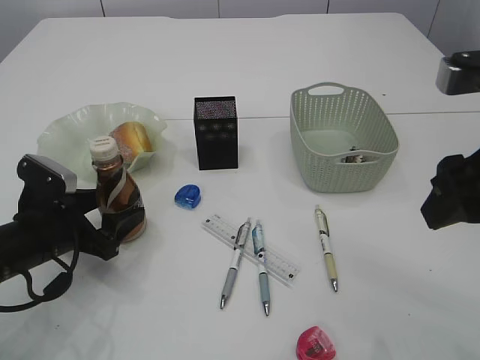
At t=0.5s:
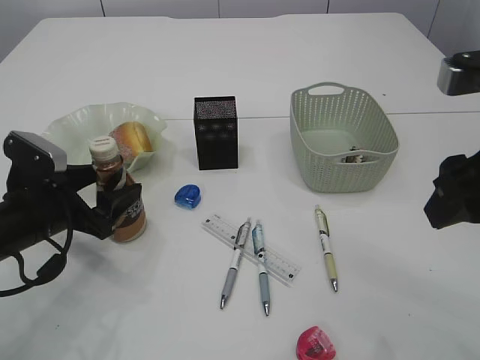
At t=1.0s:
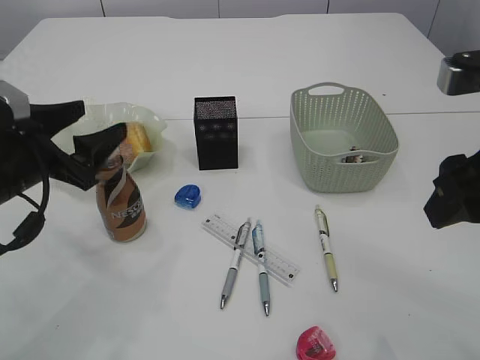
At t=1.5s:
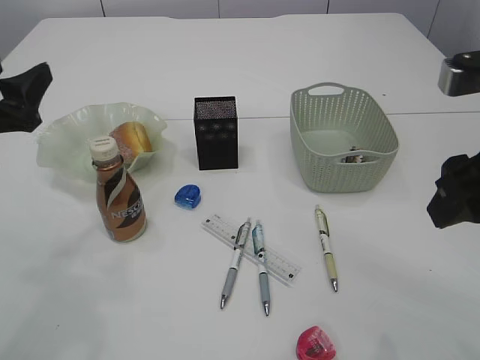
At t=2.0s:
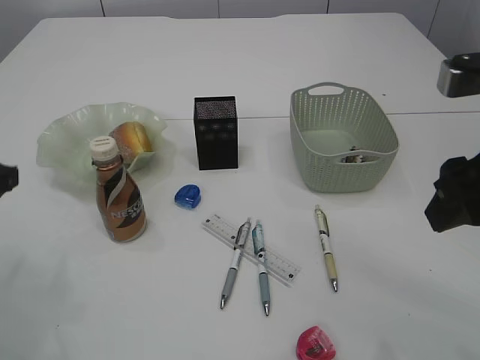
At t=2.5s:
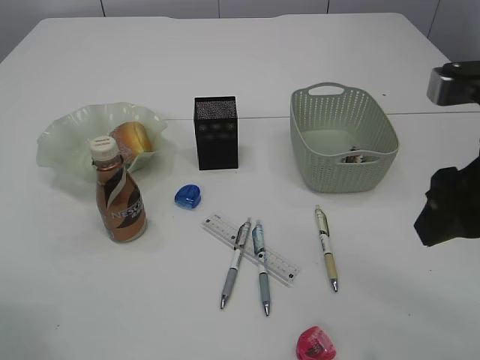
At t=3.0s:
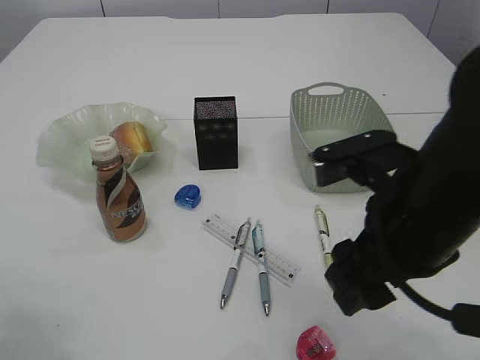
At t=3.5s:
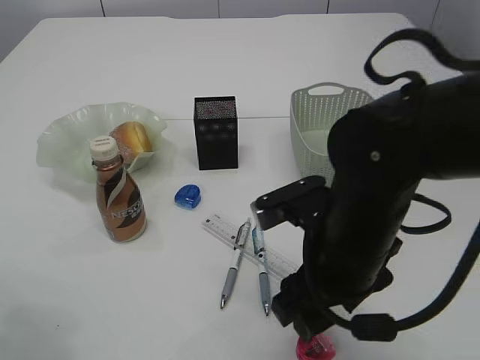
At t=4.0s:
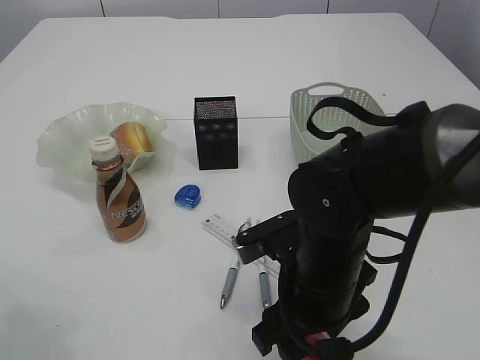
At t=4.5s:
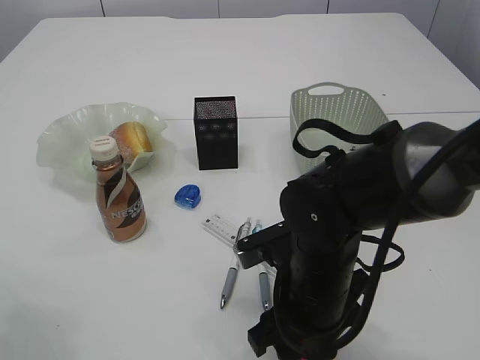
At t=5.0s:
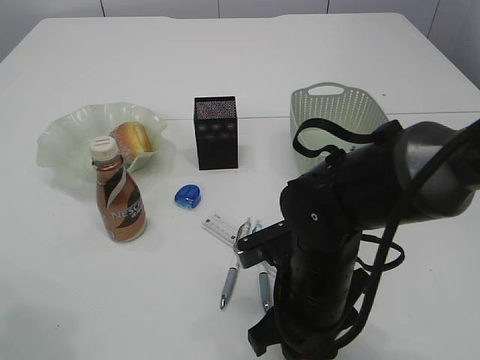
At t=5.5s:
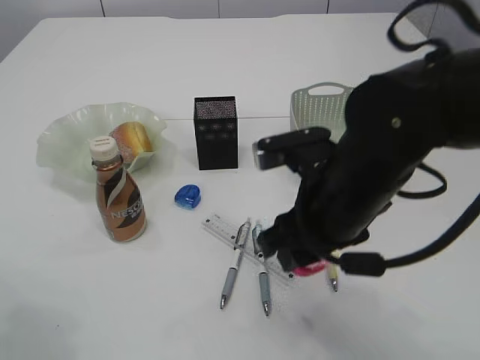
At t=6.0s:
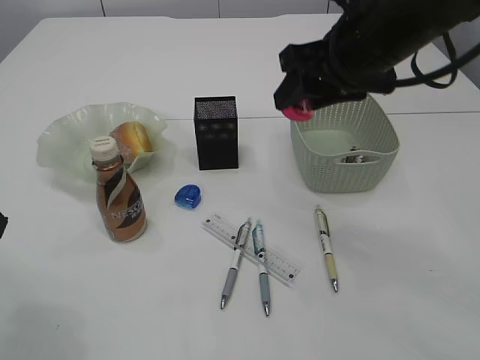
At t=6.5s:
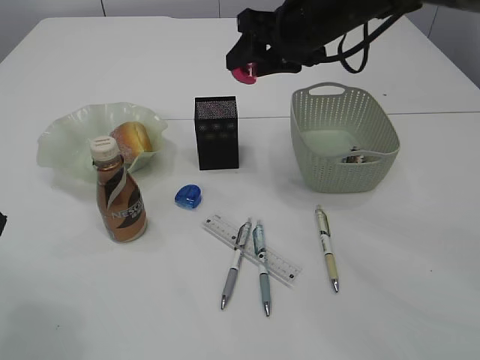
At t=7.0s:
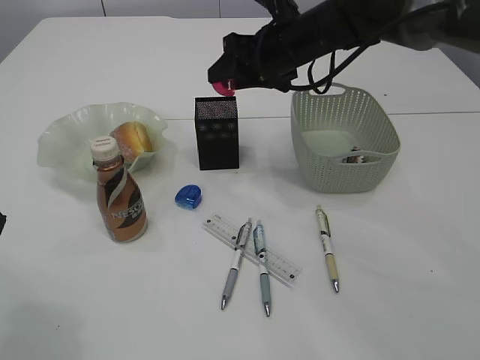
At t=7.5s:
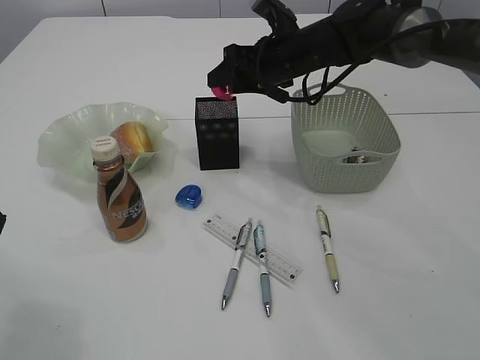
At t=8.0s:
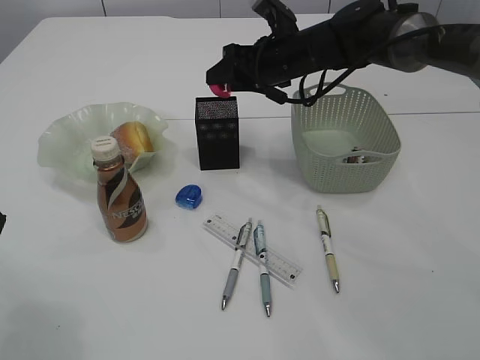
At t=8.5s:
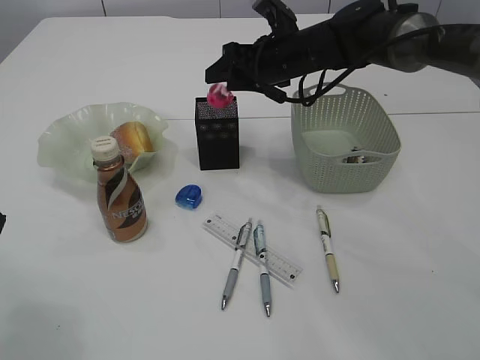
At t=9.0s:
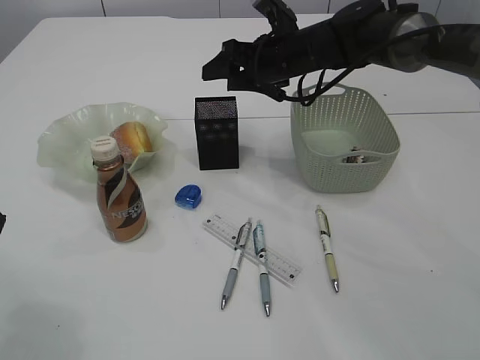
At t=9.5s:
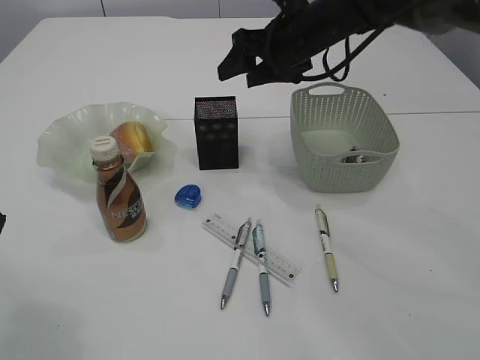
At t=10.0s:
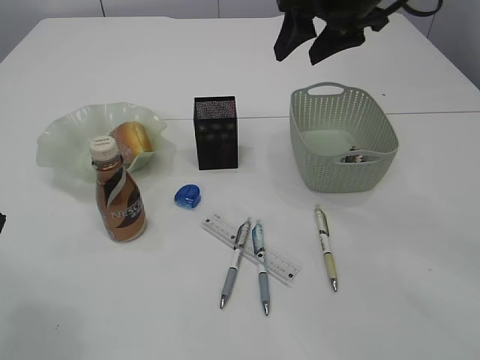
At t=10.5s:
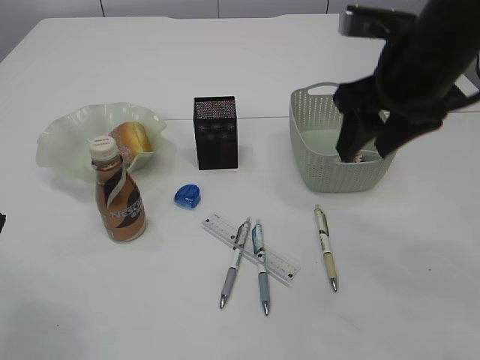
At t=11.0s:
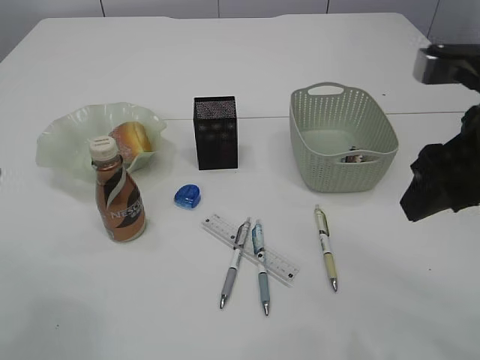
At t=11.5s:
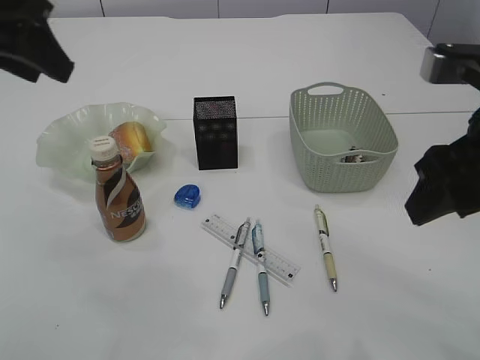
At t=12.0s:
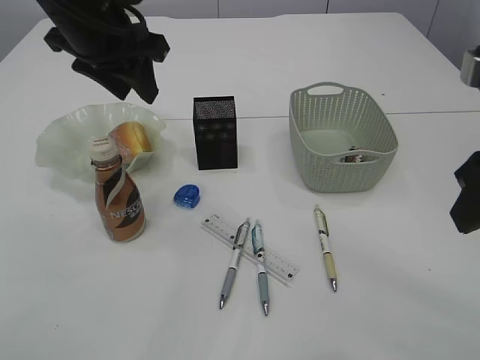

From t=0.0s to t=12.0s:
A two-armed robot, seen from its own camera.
Step, from t=1.5s to t=5.0s: Pick up the red pencil sharpener.
Step, from t=5.5s to t=8.5s: Place the red pencil sharpener into the pen holder.
From t=0.0s to t=2.0s: The left gripper shifts approximately 15 cm upward and to the left, and closes.
From t=2.0s to t=4.0s: The left gripper heads upward, covering some 5 cm; the right gripper is displaced downward and to the left by some 20 cm.
From t=4.0s to t=6.0s: The right gripper is displaced upward, forward and to the right by approximately 20 cm.
From t=6.0s to t=8.0s: The right gripper moves forward and downward, approximately 20 cm.
From t=8.0s to t=10.0s: The right gripper heads upward and backward, covering approximately 15 cm.
From t=10.0s to t=12.0s: The left gripper is displaced forward and to the right by approximately 20 cm; the right gripper moves backward, approximately 20 cm.

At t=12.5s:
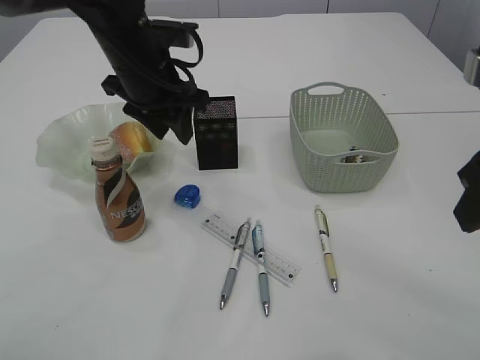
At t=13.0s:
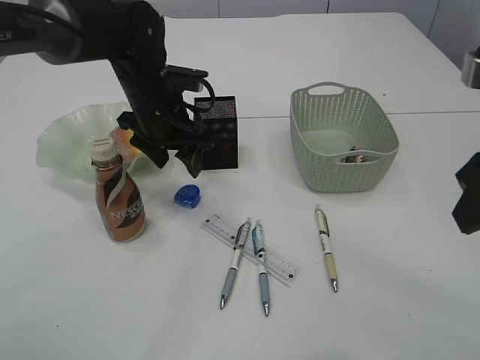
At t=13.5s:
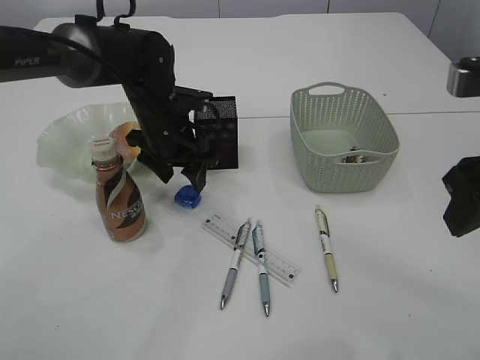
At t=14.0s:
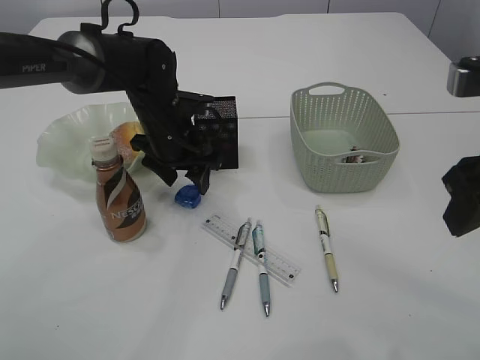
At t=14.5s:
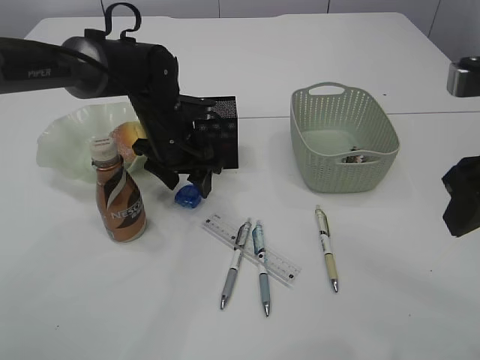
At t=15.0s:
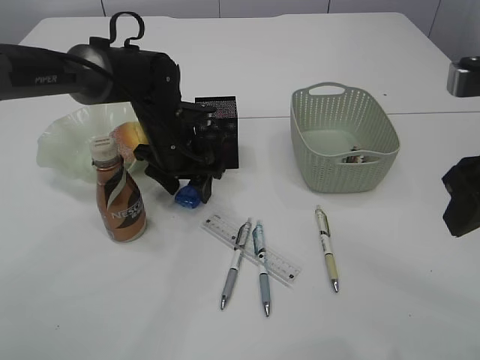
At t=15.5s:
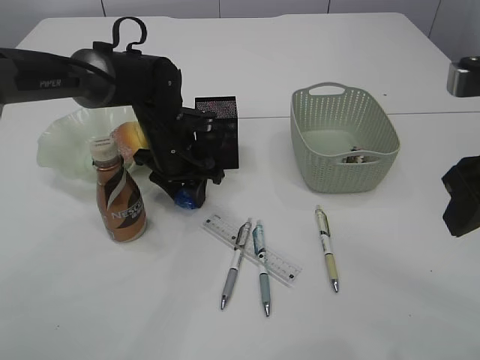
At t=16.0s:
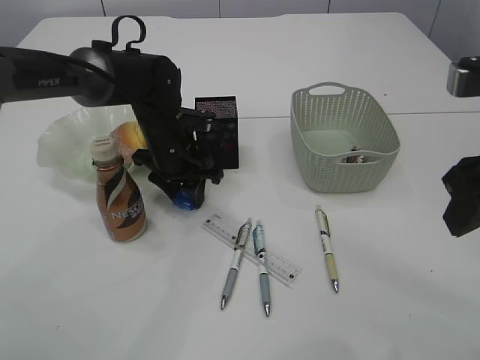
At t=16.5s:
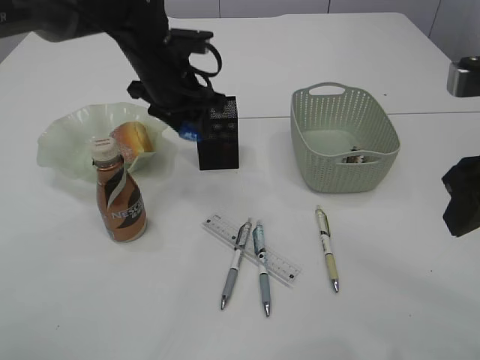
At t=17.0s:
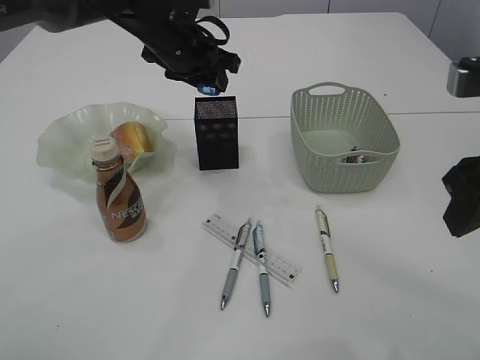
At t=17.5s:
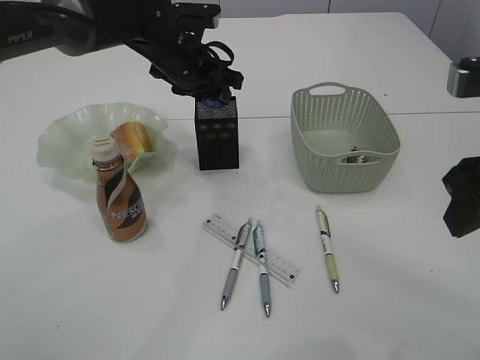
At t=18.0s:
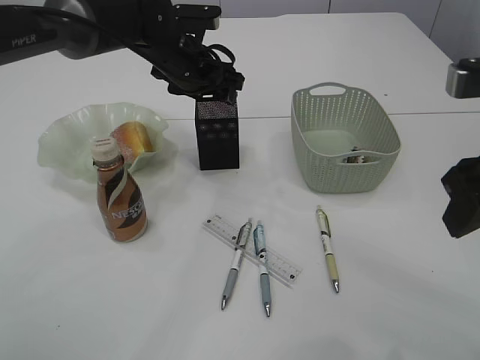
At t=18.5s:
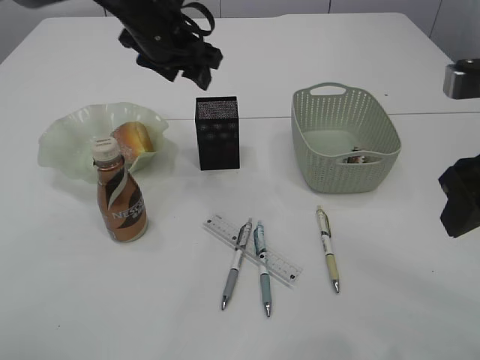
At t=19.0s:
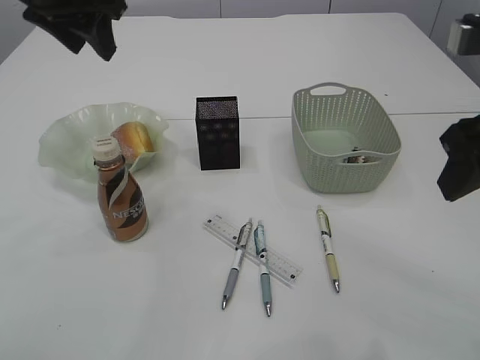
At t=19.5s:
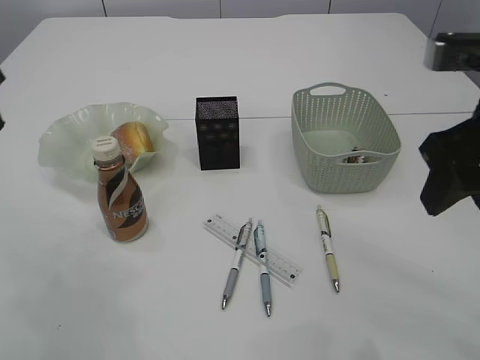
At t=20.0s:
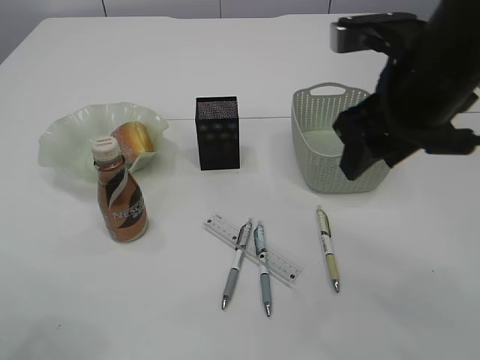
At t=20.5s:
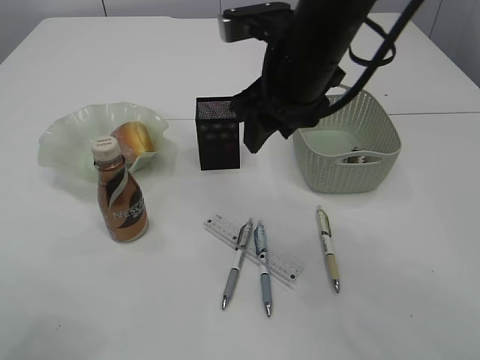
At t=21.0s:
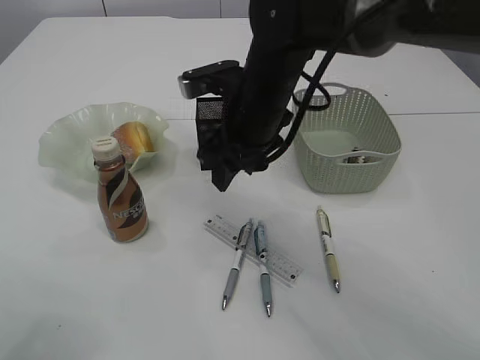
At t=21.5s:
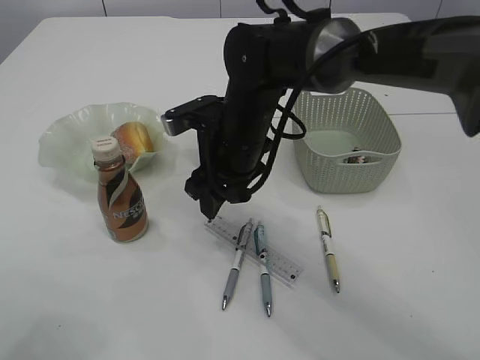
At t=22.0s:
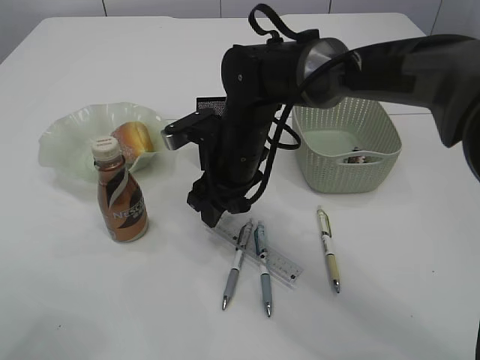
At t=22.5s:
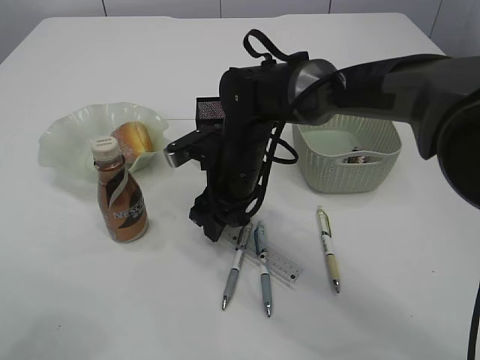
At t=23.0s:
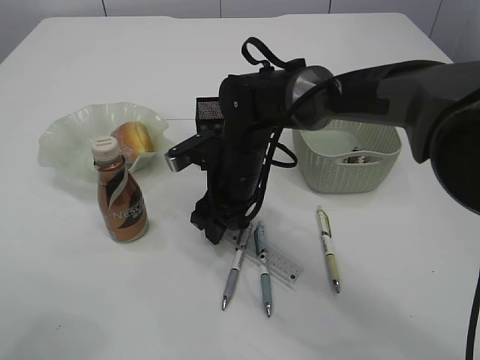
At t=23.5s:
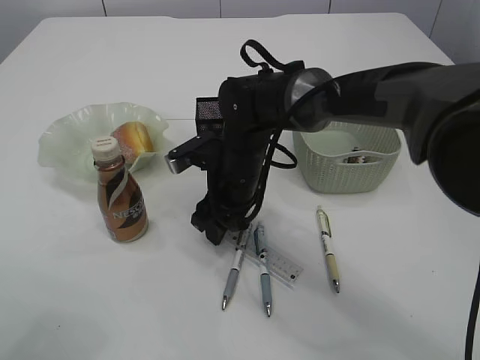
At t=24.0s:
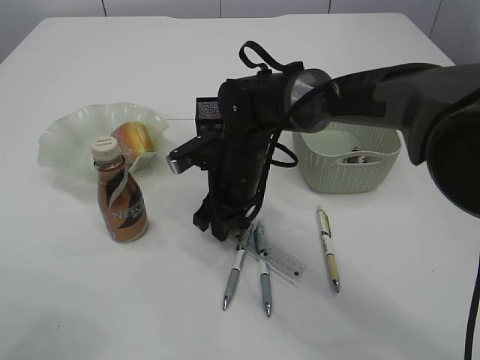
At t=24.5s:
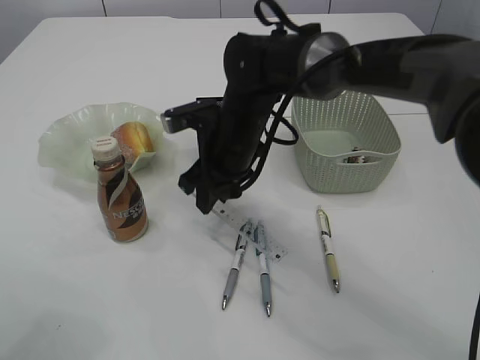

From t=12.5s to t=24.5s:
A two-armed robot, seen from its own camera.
Step, from t=12.5s to t=16.0s: Pick up the blue pencil sharpener.
Step, from t=16.5s to t=18.0s: Place the blue pencil sharpener into the pen holder.
From t=12.5s to t=14.5s: The left gripper goes approximately 10 cm downward, and opens up.
From t=14.5s to t=16.5s: The left gripper heads upward, covering about 10 cm, and closes.
From t=16.5s to t=18.5s: The left gripper heads upward, covering roughly 5 cm, and opens up.
From t=18.5s to t=20.5s: The right gripper is displaced to the left and forward by roughly 20 cm. The left gripper heads backward and to the left, covering some 30 cm, and closes up.
From t=20.5s to t=22.5s: The right gripper heads downward and to the left, covering some 15 cm.
From t=22.5s to t=24.5s: The right gripper closes.

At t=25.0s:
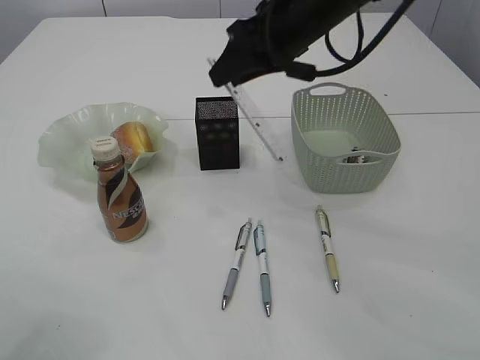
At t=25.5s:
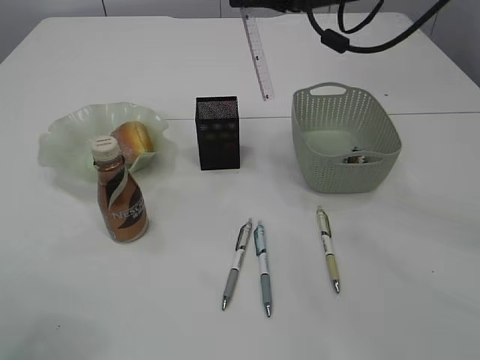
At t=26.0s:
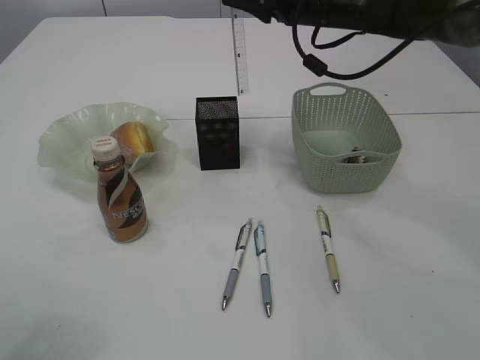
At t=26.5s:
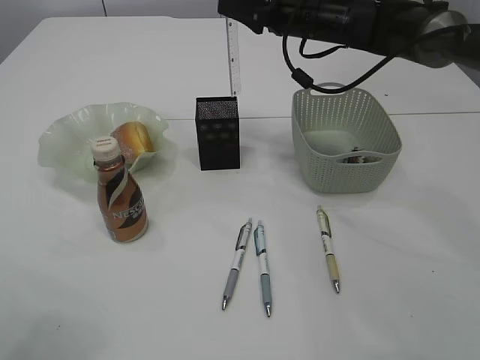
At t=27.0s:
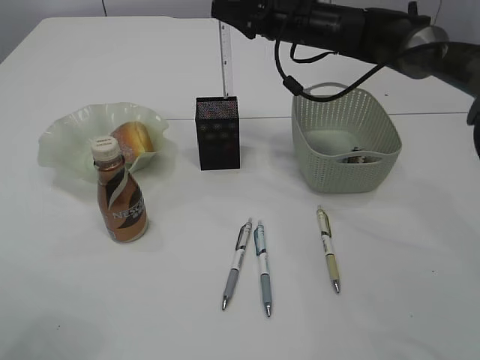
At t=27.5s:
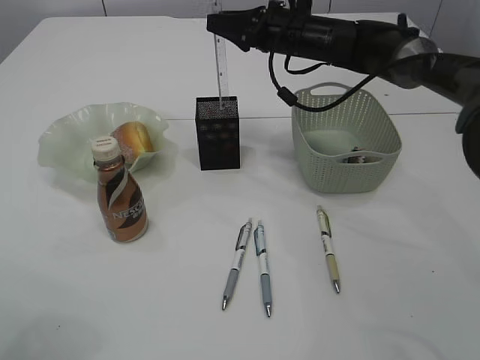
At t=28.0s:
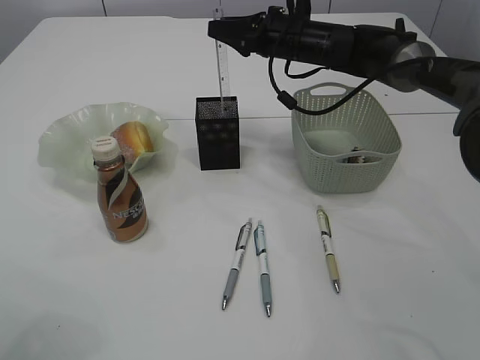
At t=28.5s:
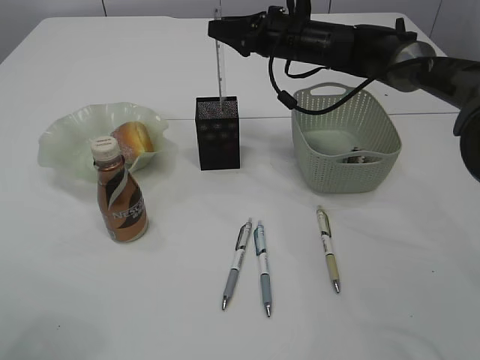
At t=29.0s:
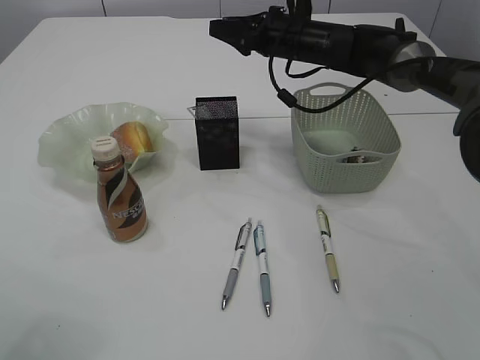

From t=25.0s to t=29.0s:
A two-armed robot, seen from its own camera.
From t=25.0s to t=27.0s: The right gripper goes approximately 10 cm forward and downward.
From t=27.0s to t=29.0s: The grippers move only a little.
